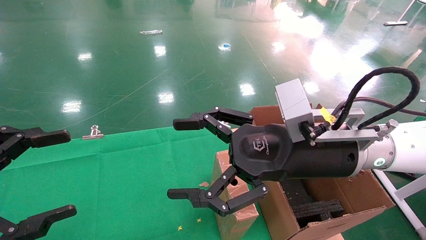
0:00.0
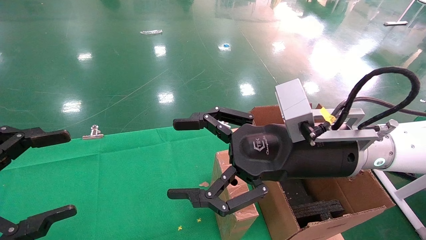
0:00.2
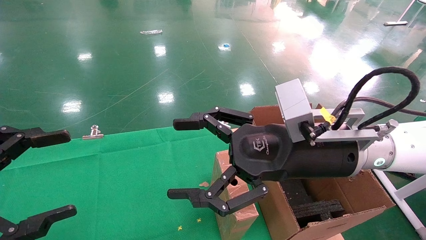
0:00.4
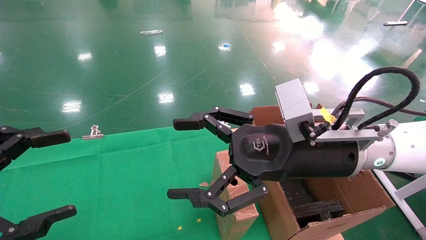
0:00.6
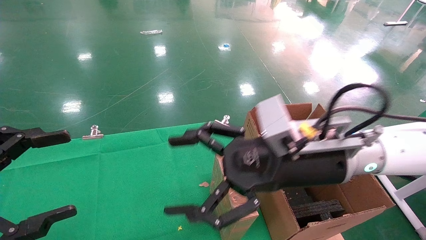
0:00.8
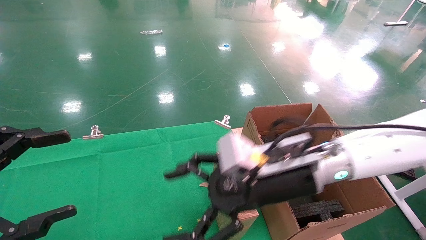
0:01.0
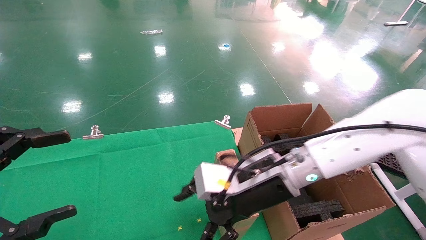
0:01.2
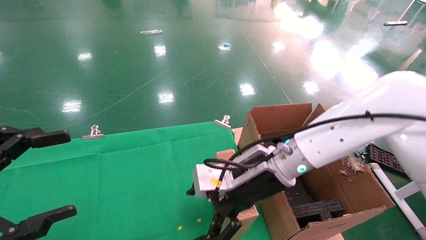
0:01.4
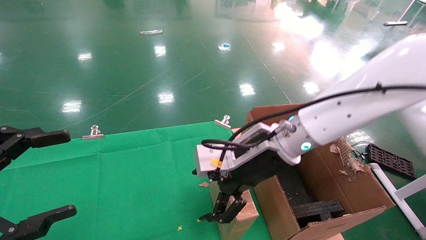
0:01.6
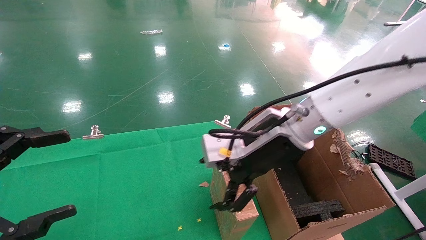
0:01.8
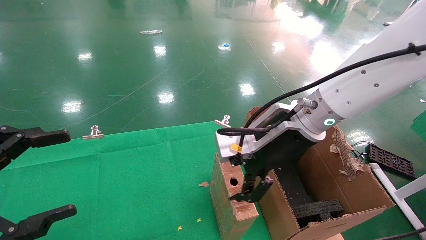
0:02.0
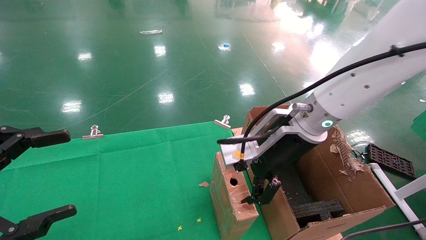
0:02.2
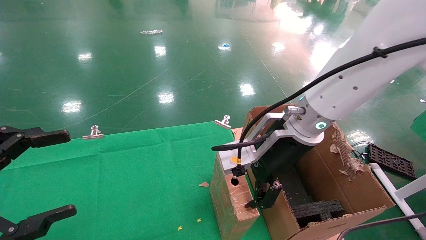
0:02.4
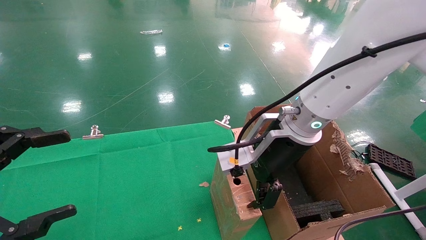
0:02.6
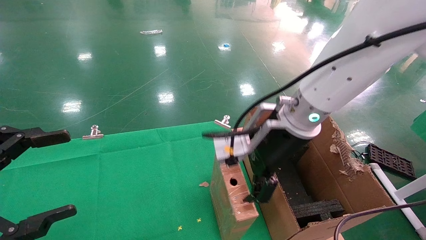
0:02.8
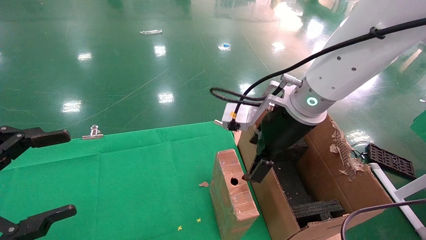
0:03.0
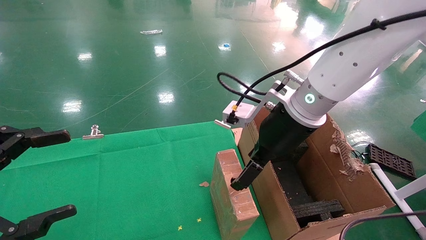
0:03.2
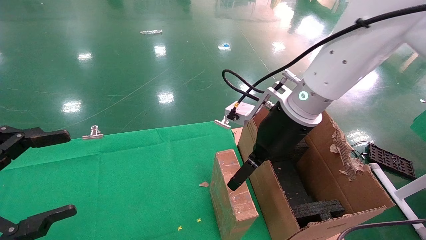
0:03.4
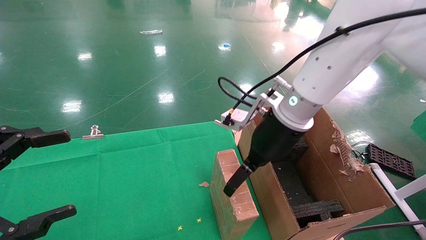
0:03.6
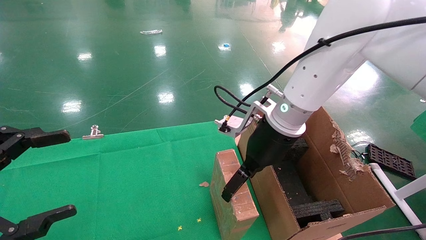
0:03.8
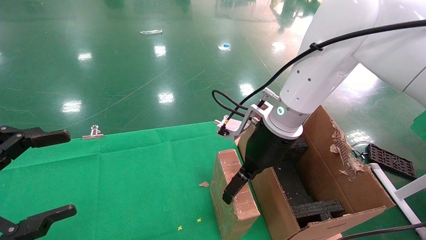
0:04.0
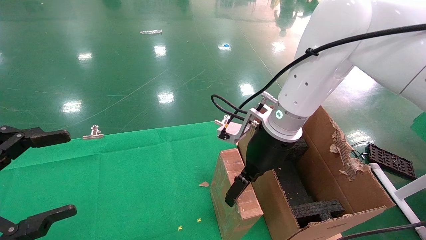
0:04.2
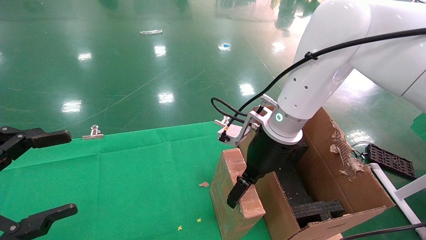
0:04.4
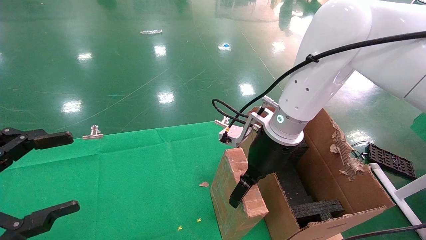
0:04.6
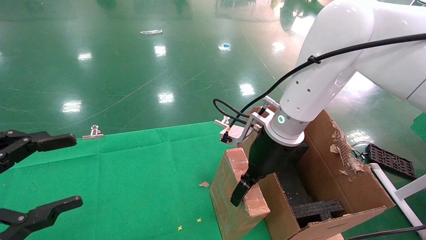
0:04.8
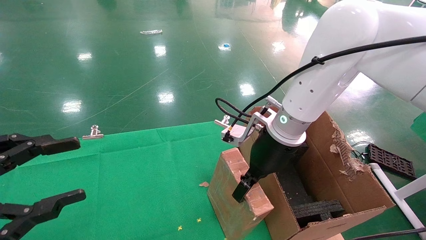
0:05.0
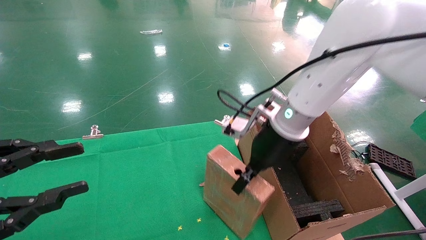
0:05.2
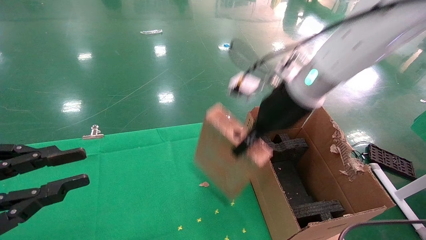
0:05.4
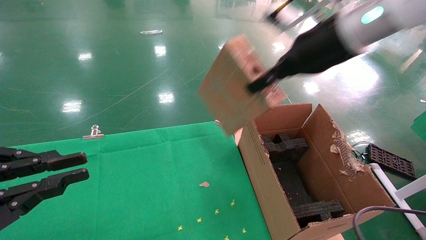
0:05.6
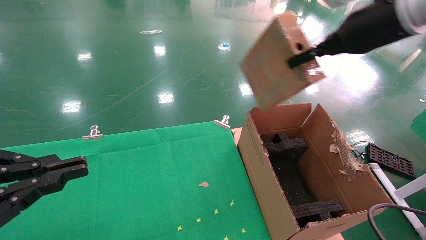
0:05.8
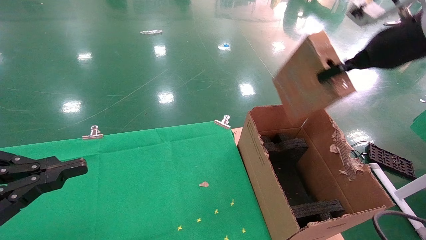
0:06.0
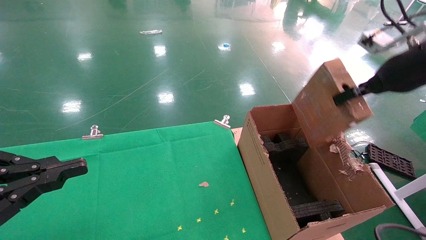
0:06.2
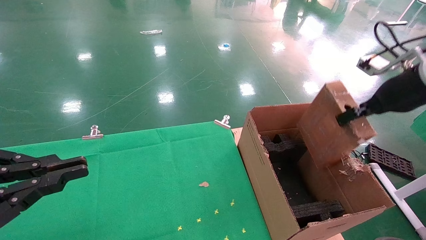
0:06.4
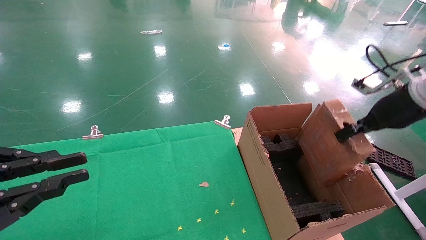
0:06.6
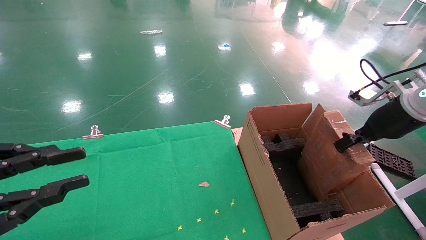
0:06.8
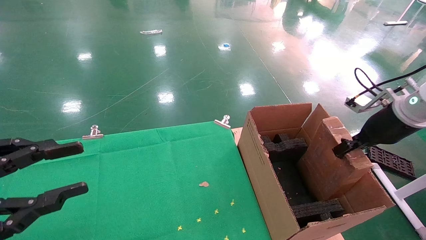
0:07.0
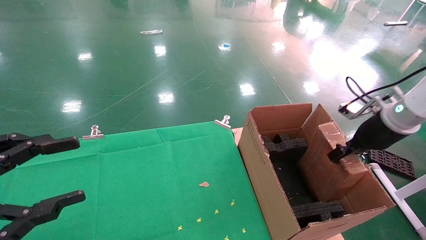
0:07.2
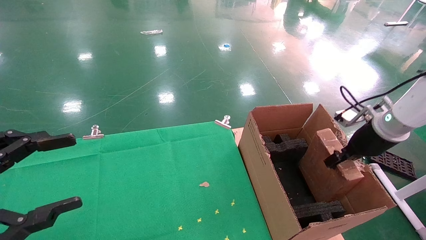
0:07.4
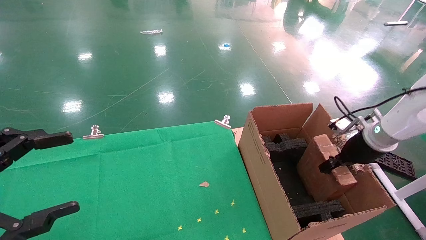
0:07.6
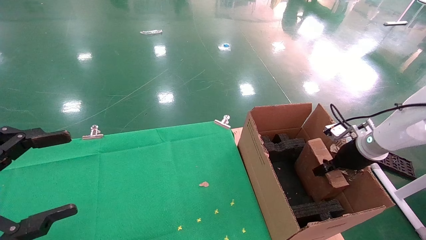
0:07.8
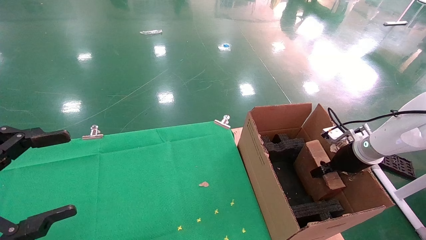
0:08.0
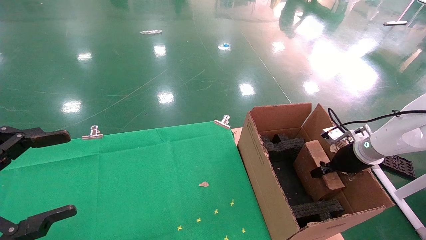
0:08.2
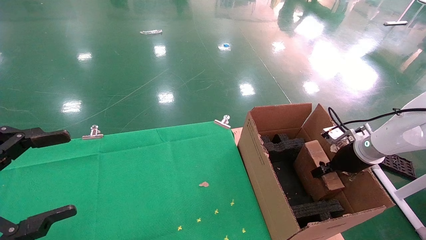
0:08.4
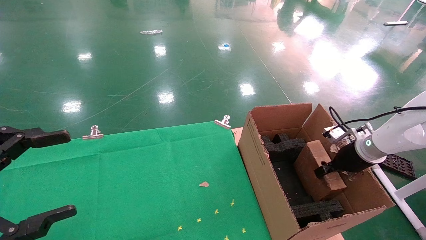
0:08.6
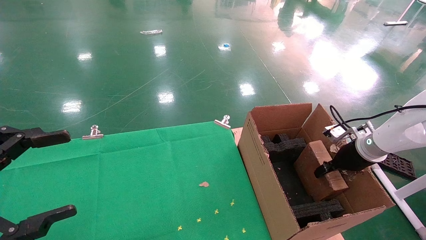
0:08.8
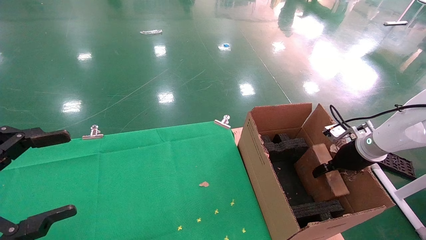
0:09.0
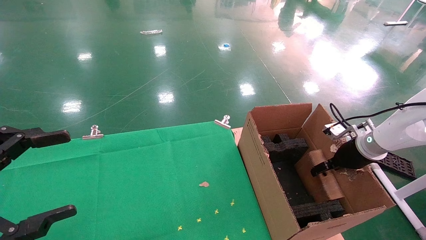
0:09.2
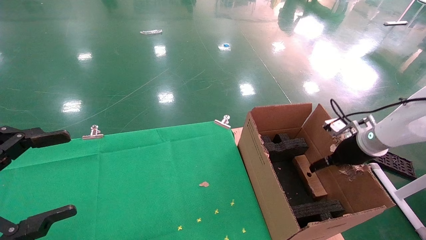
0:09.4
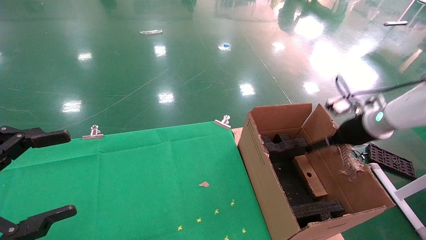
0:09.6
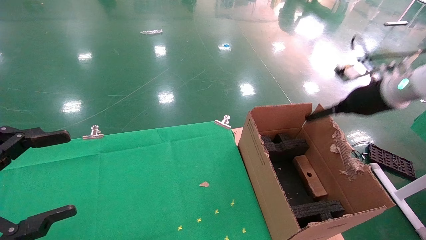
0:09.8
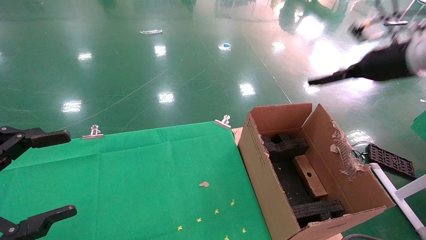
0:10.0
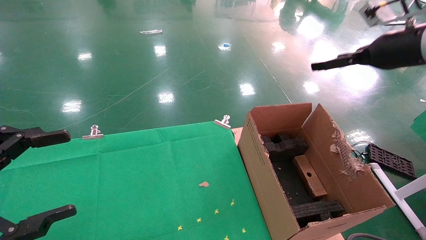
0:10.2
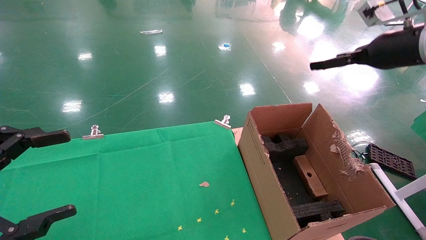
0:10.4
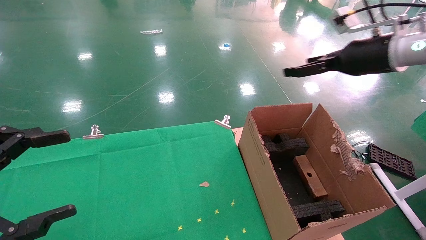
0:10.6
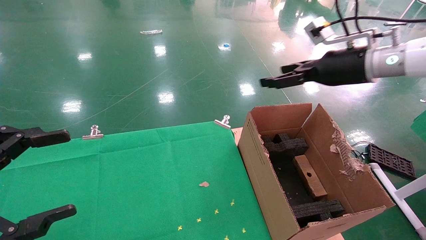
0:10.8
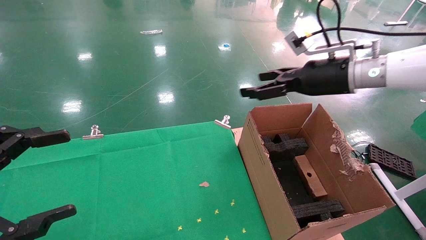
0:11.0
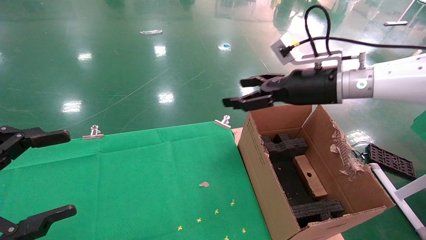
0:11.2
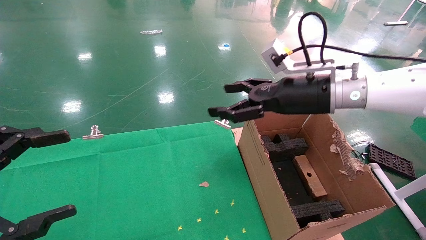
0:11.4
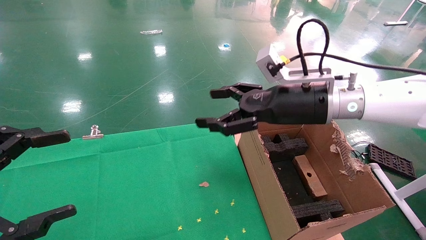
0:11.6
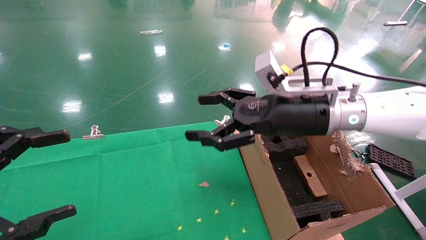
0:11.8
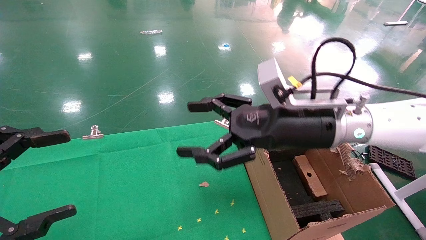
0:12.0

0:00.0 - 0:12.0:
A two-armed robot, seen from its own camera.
Task of the whole recording: using a robotic arm to pick up a cardboard box and palace it the carton.
Step, 0:01.0 - 0:05.2: Pick up the mouse and the power cord paper box.
Step, 0:05.4 - 0:09.6: Place the mouse and the power cord paper box into the container.
0:00.0 - 0:01.6: The right gripper travels forward by about 5 cm.
0:01.6 - 0:03.0: The right gripper travels upward by about 5 cm.
0:03.0 - 0:04.4: The right gripper changes place by roughly 5 cm.
0:04.4 - 0:06.0: The right gripper travels to the right and upward by some 25 cm, and closes up. The left gripper closes.
0:06.0 - 0:07.6: The left gripper opens up. Meanwhile the right gripper goes roughly 20 cm downward.
0:07.6 - 0:09.0: The right gripper opens its fingers.
0:09.0 - 0:10.4: The right gripper shifts about 25 cm upward, and opens.
0:10.4 - 0:12.0: The right gripper heads to the left and downward, covering roughly 25 cm.

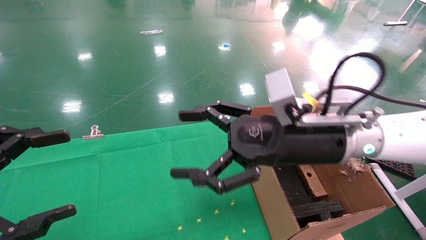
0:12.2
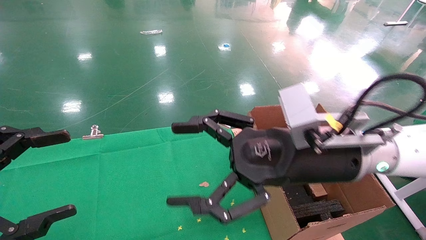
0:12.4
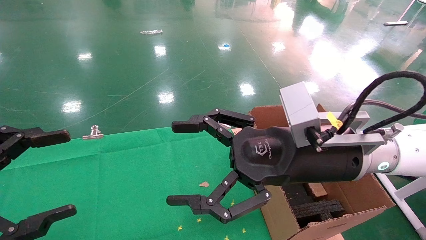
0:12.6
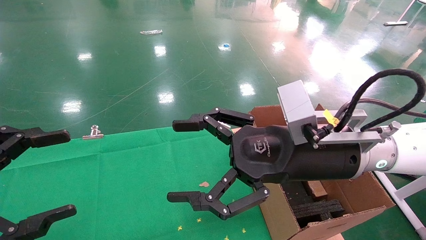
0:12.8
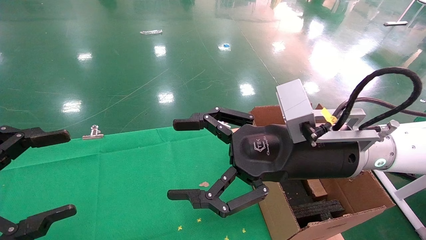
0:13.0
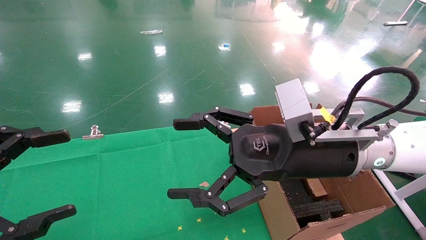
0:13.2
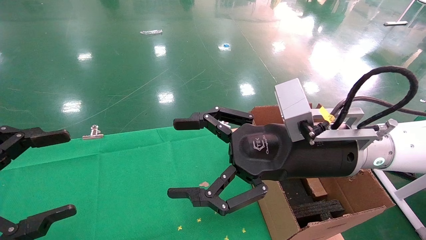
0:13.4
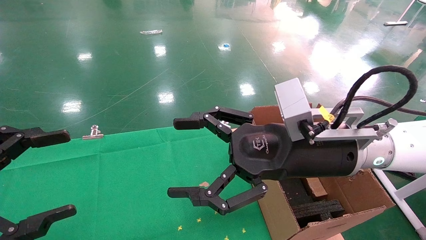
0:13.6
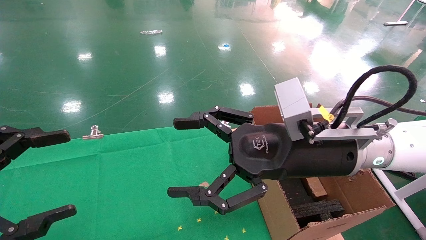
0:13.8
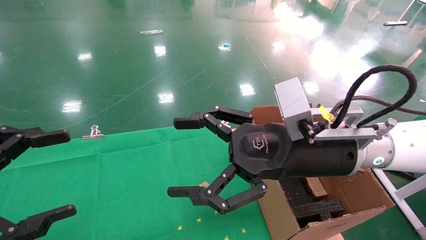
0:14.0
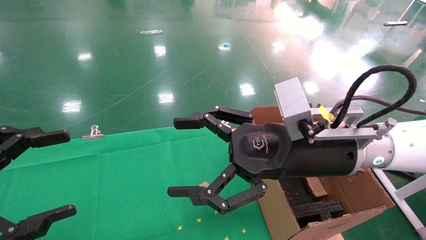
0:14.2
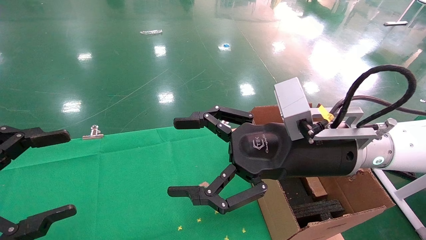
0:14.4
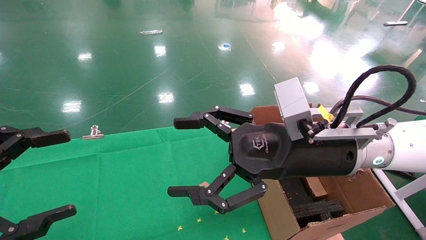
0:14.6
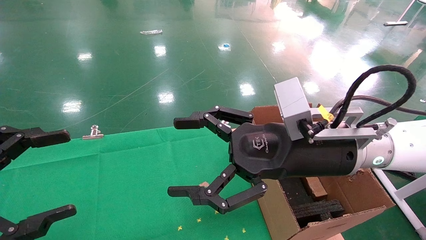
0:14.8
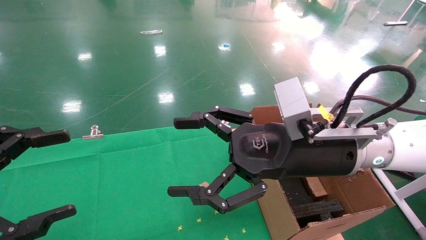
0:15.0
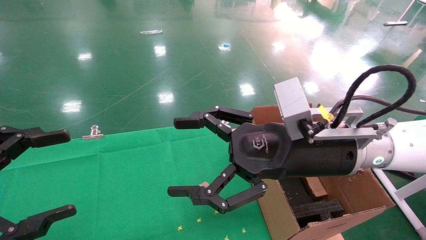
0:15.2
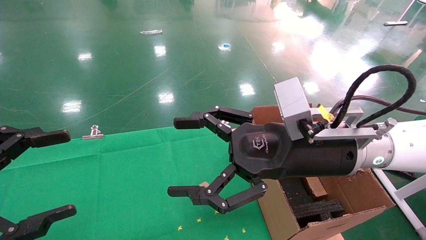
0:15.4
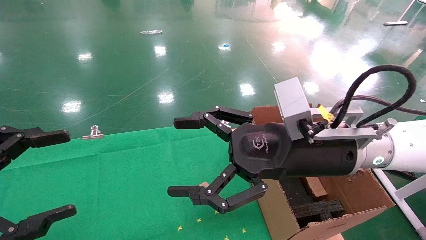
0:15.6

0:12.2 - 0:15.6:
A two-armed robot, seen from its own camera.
Task of the whole recording: using a robotic arm to pick up a cardboard box and palace it the carton.
0:12.2 - 0:13.8: The grippers move only a little.
0:13.8 - 0:15.6: Both grippers stay put.
